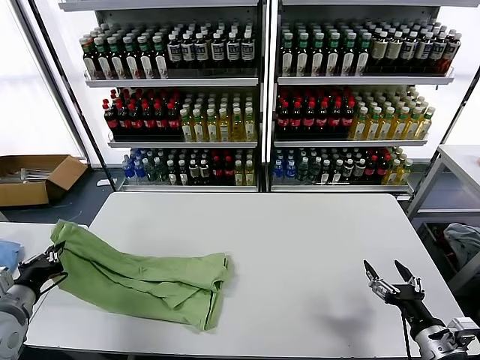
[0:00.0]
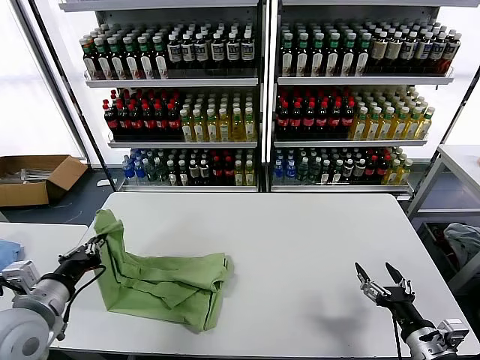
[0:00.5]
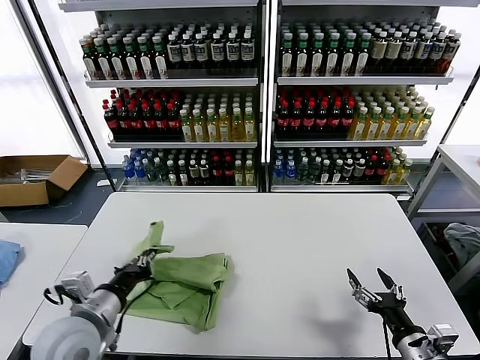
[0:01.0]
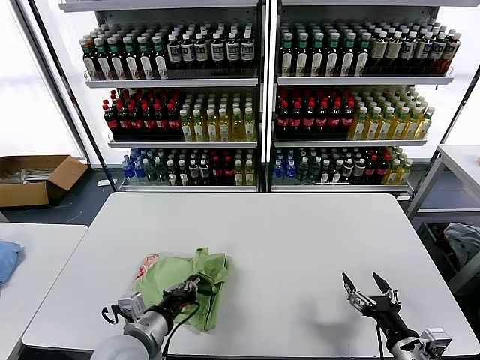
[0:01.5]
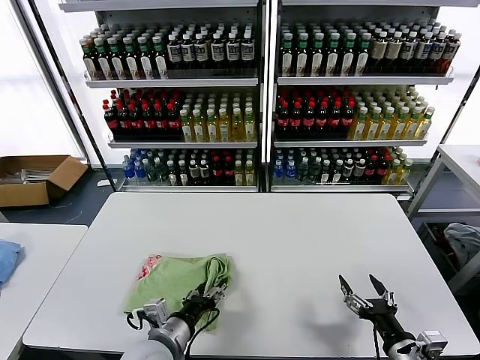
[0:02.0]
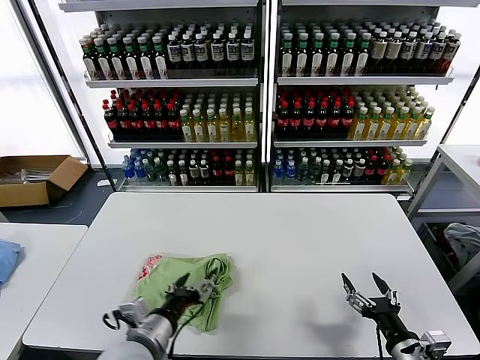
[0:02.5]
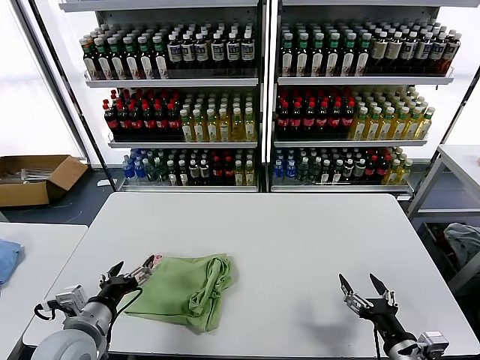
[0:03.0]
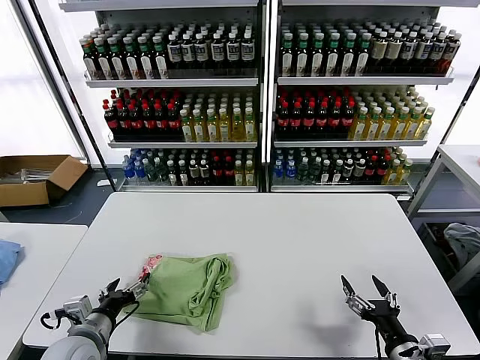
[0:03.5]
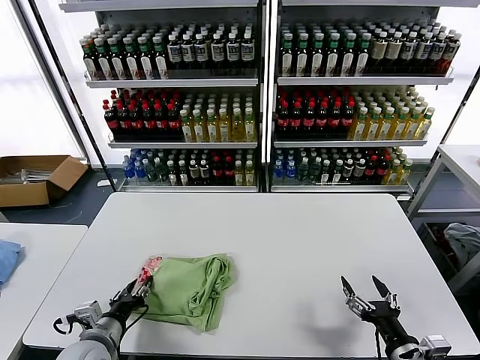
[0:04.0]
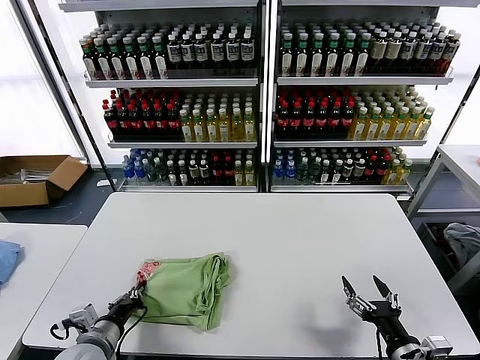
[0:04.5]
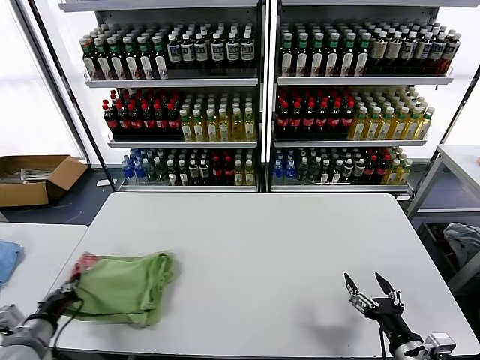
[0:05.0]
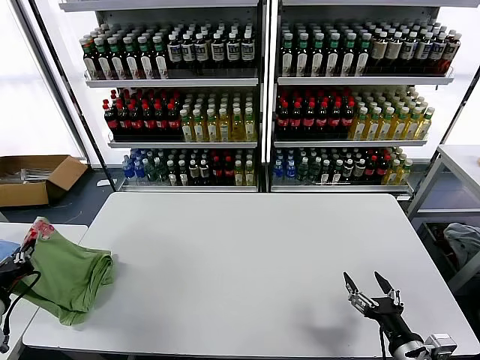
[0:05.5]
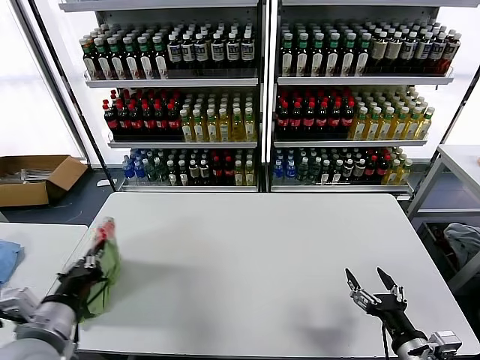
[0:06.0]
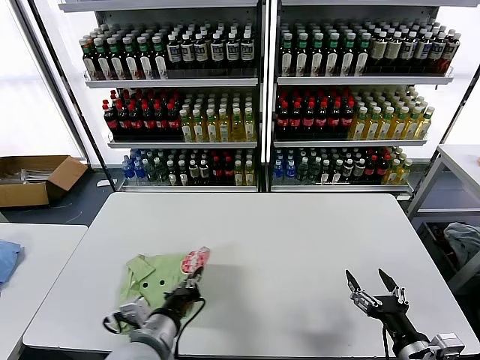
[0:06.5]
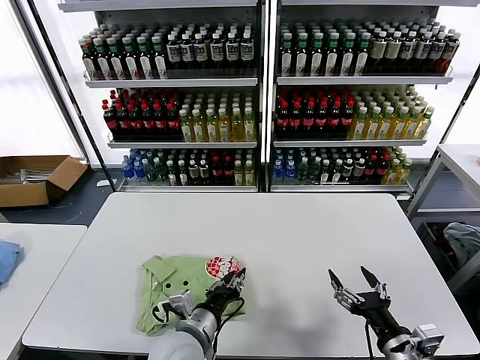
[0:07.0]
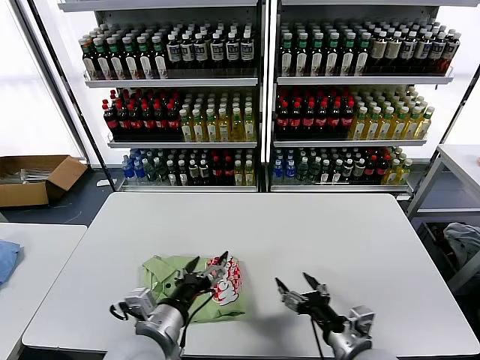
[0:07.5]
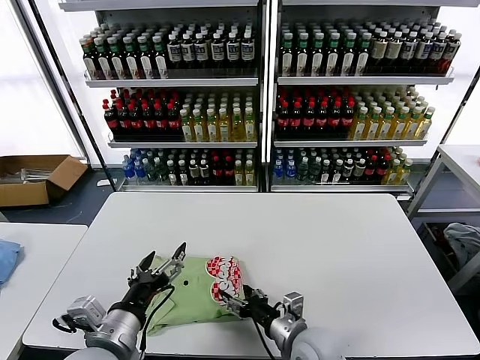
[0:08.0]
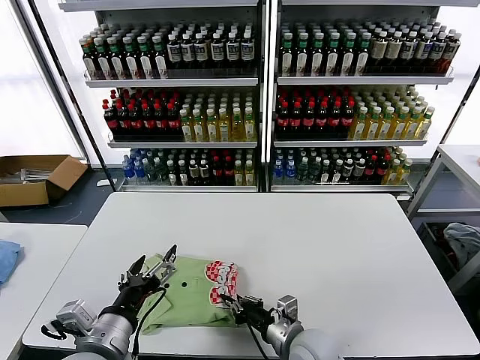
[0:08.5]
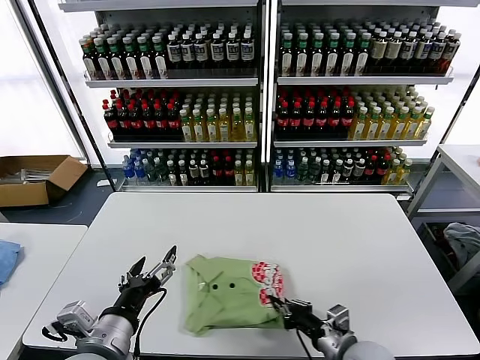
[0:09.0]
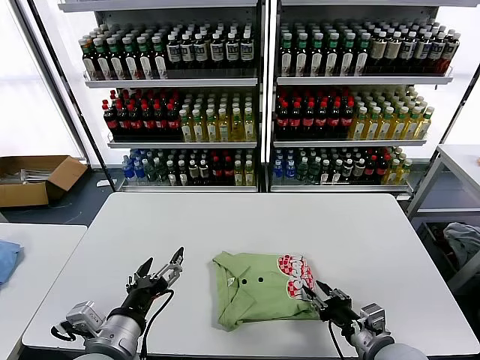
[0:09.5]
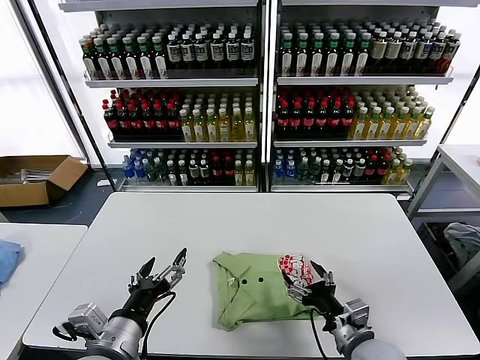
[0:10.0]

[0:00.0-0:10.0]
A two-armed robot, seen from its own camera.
Task of the whole recording: fold and organize the clothes.
Step, 0:00.0 to 0:02.0: use the left gripper to drag the left edge of the fabric to the left and folds it over the right edge.
Step, 0:02.5 to 0:07.0: Flip the folded clothes over with left gripper.
0:00.0 to 0:02.0: The right gripper goes roughly 5 cm to the left. The left gripper shifts some 25 cm to the right, and opens its fingers.
0:02.0 to 0:04.0: The left gripper shifts roughly 15 cm to the left, and opens, then closes again.
0:04.0 to 0:06.0: The left gripper goes some 15 cm upward, and closes.
0:06.0 to 0:08.0: The right gripper is displaced to the left and forward by some 20 cm; the left gripper travels to the right by roughly 10 cm, and opens its fingers.
0:08.0 to 0:10.0: The right gripper heads to the right, covering approximately 10 cm, and closes and opens again.

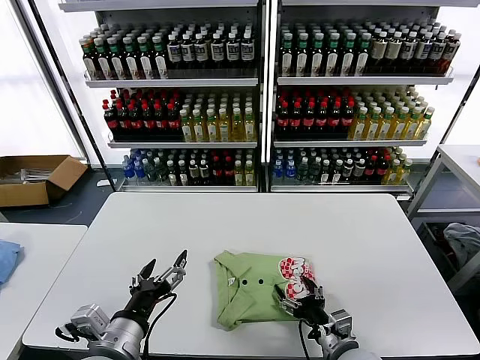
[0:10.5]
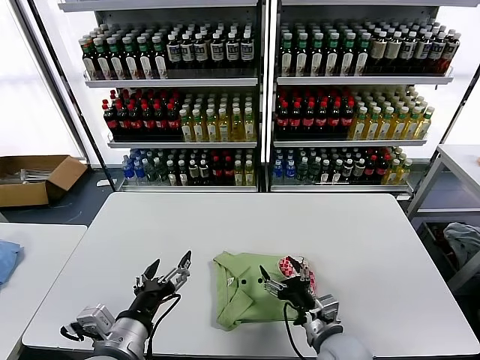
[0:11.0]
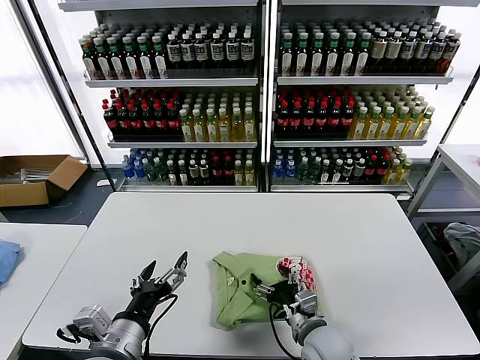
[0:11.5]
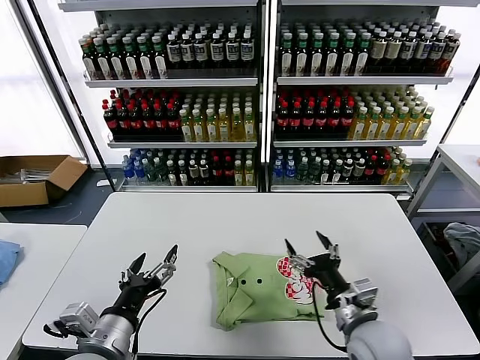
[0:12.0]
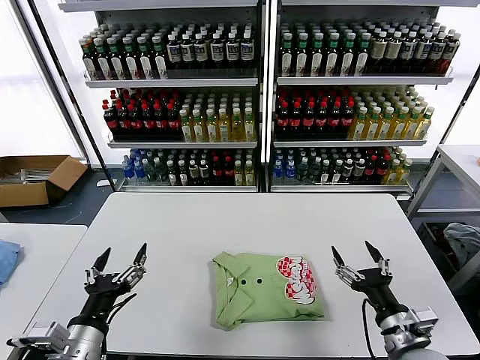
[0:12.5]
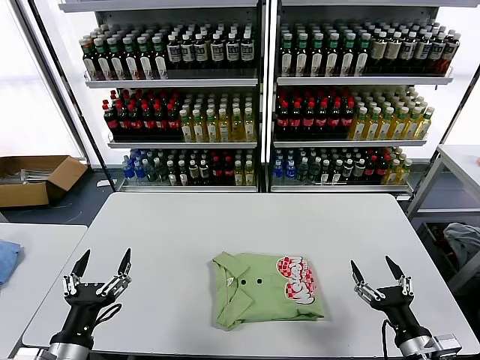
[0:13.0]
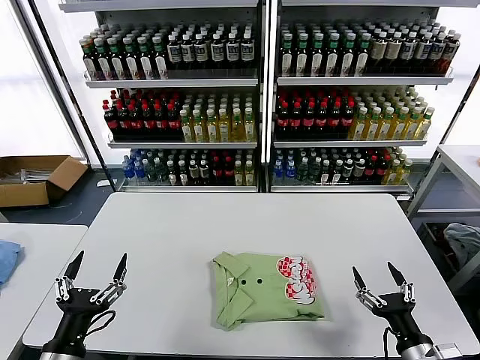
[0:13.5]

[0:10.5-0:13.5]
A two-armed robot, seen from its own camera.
Task of the whole recording: fold and organize the clothes.
0:10.5 to 0:12.0: The right gripper goes about 10 cm upward.
0:12.0 to 0:13.5: The right gripper heads to the right and backward, covering about 15 cm; the left gripper goes about 10 cm to the left.

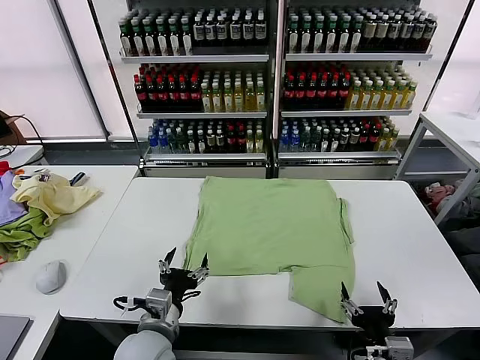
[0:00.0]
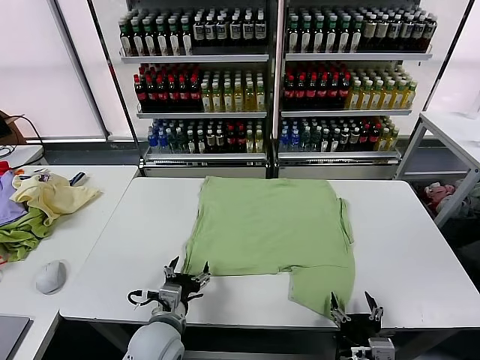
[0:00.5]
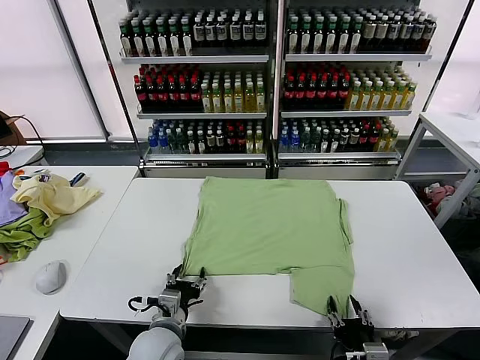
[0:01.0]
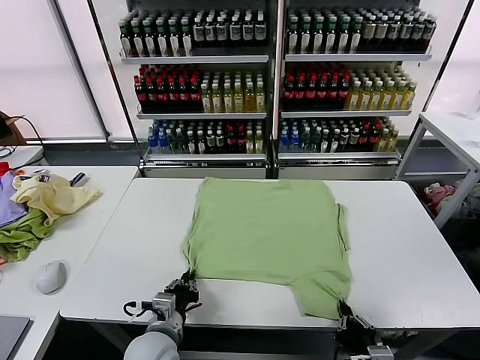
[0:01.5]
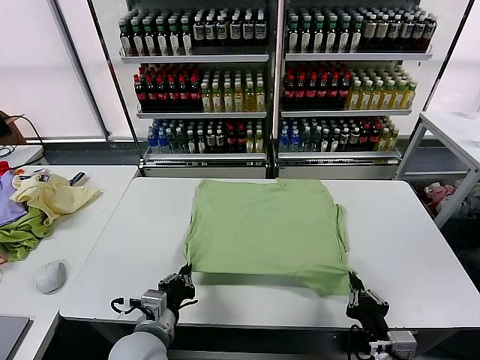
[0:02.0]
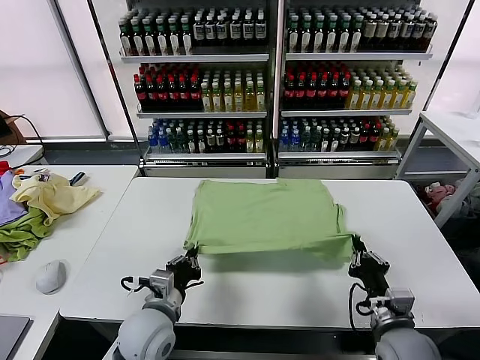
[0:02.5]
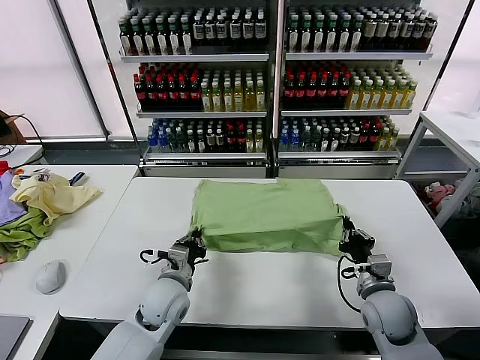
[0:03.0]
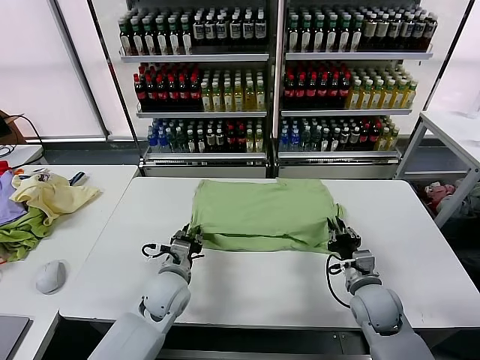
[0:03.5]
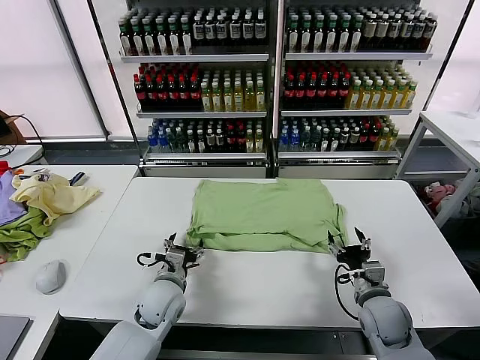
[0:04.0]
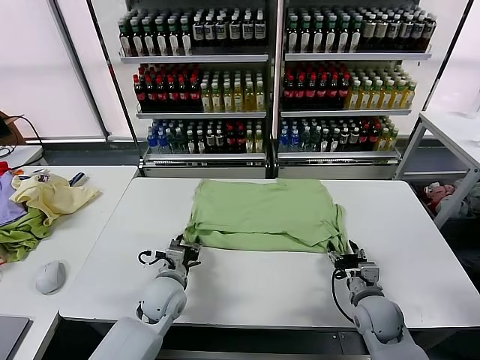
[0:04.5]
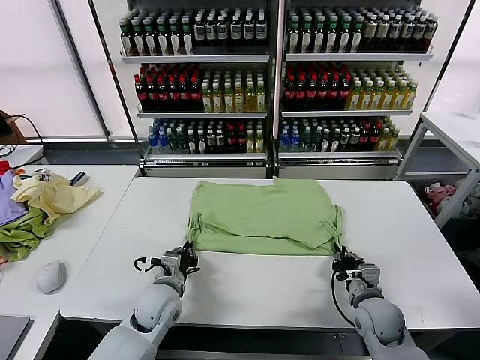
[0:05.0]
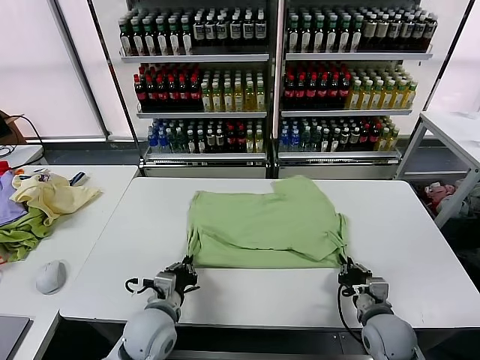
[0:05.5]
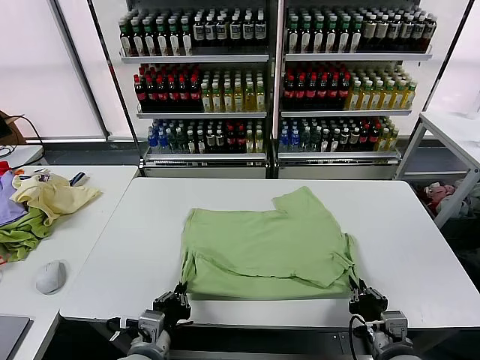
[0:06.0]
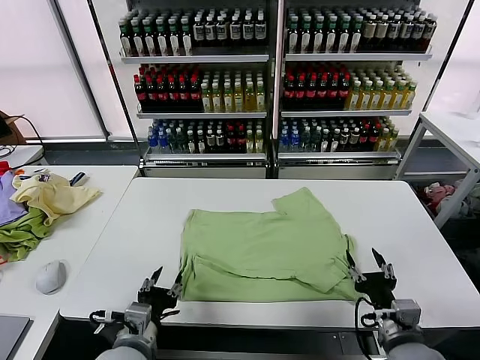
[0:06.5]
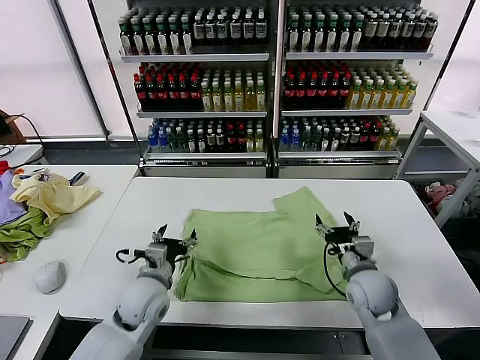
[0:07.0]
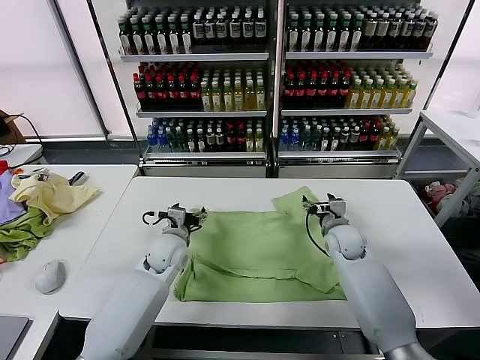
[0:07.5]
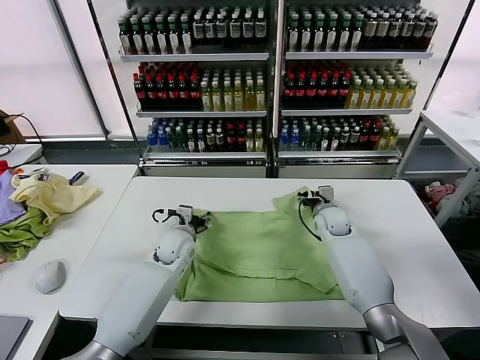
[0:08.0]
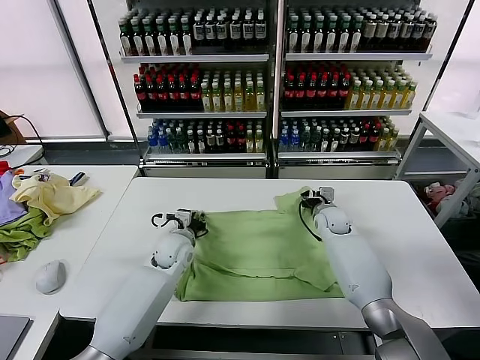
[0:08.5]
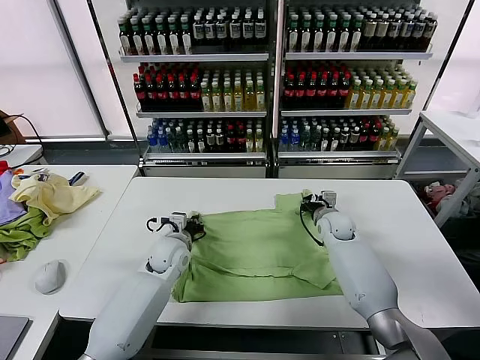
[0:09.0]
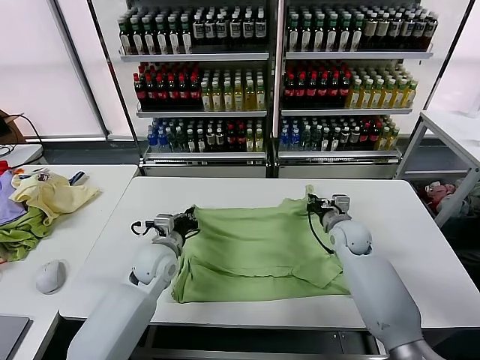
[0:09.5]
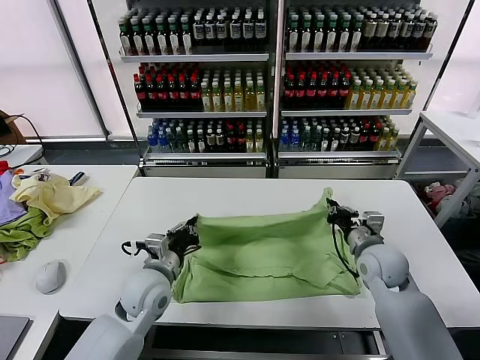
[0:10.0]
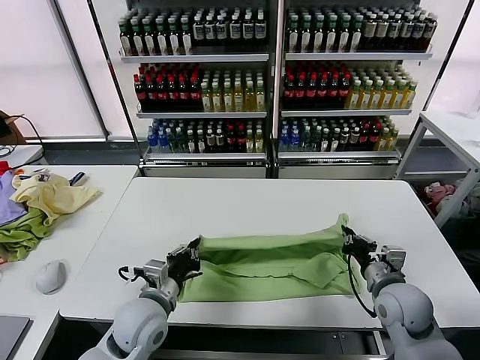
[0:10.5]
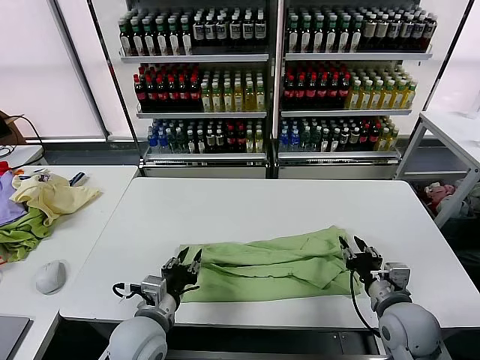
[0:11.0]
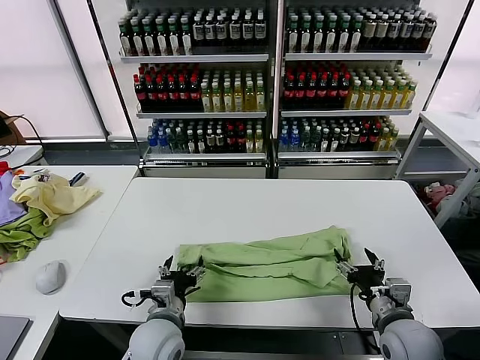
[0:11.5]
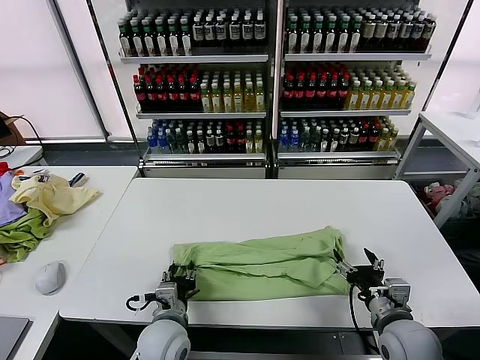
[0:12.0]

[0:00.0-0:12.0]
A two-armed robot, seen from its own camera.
Task of the whole recording: fold and organize the clothes.
Step, 0:00.0 to 0:01.5: use both grippers simultaneously to clamp the lower edge of the clothing fabric.
Step, 0:02.0 to 0:03.5: use both grippers to drag the lower edge of the fabric forward and fold it over the upper edge.
Step, 0:04.0 to 0:06.0: Drag the clothes downward with both gripper.
Step, 0:06.5 to 0:08.5: use both grippers simultaneously to clamp the upper edge of the clothing fabric.
Step, 0:09.0 to 0:11.0: use both grippers to drag the upper edge of the fabric backward and fold it over the lower edge.
0:02.0 to 0:04.0: Both grippers move forward, about 15 cm. The left gripper opens its fingers, while the right gripper opens.
0:04.0 to 0:06.0: Both grippers move backward, roughly 15 cm. The right gripper closes, while the left gripper closes its fingers.
0:06.0 to 0:08.0: Both grippers travel together forward, roughly 35 cm. The left gripper opens up, while the right gripper opens.
0:08.0 to 0:10.0: Both grippers move backward, some 15 cm. The right gripper closes. Meanwhile the left gripper closes.
0:10.0 to 0:12.0: The left gripper heads backward and downward, covering about 10 cm, and opens. Meanwhile the right gripper moves backward, roughly 15 cm, and opens its fingers.
